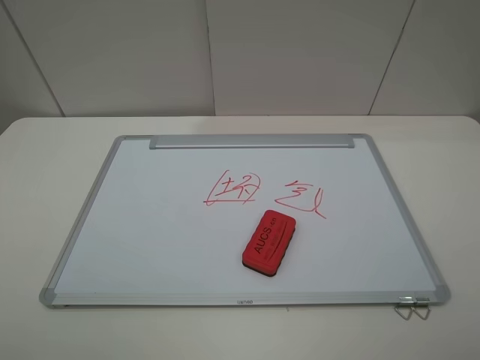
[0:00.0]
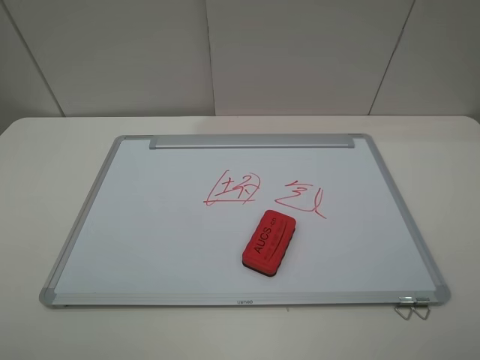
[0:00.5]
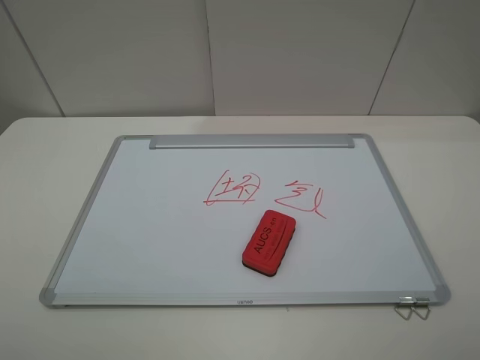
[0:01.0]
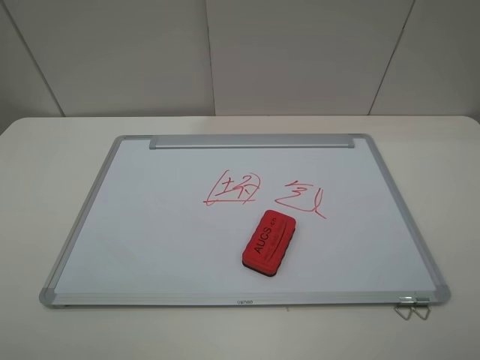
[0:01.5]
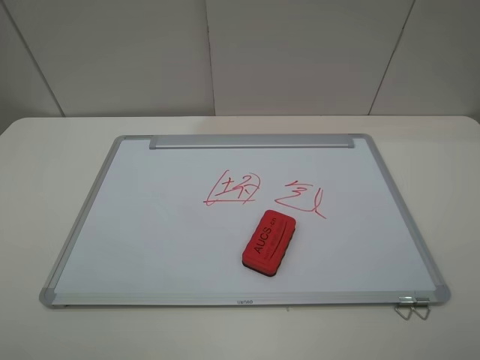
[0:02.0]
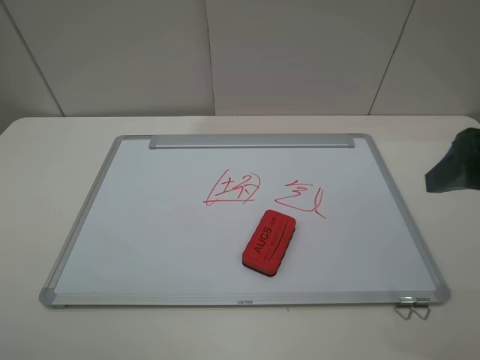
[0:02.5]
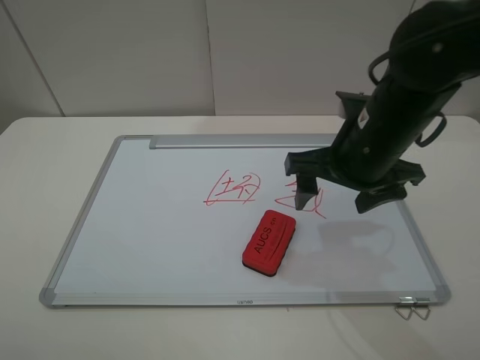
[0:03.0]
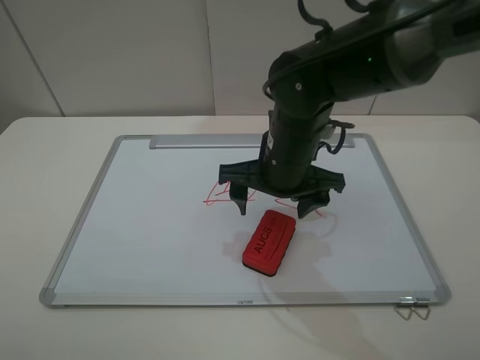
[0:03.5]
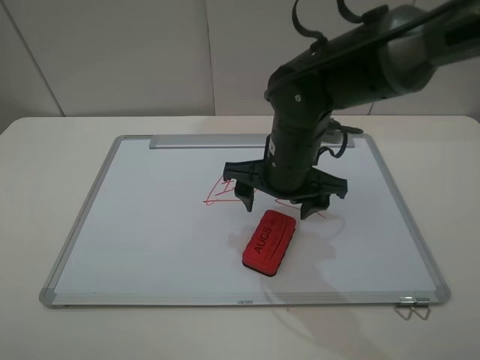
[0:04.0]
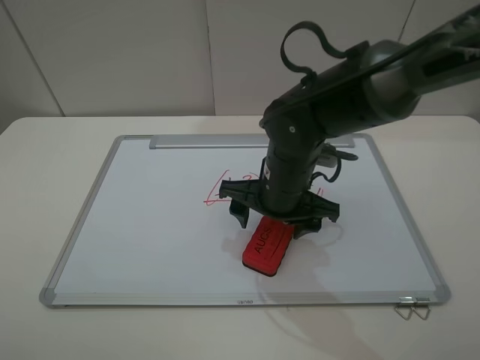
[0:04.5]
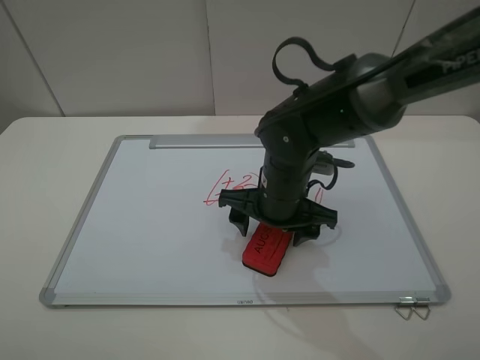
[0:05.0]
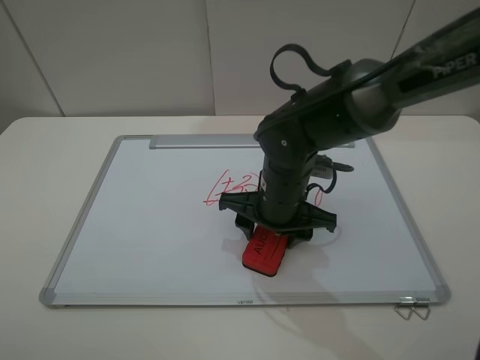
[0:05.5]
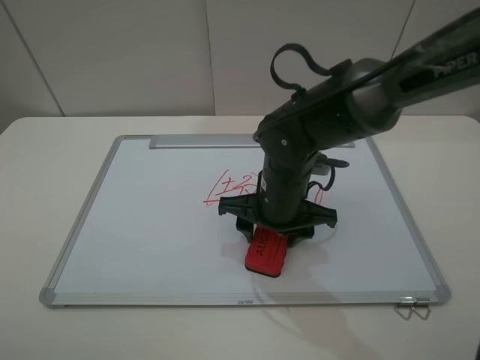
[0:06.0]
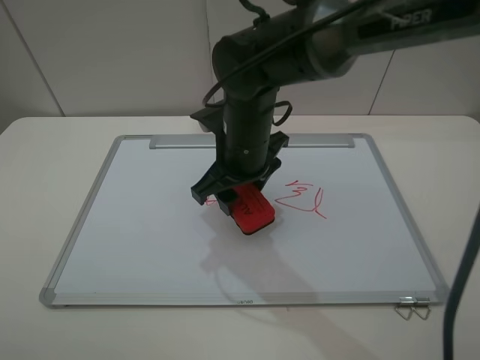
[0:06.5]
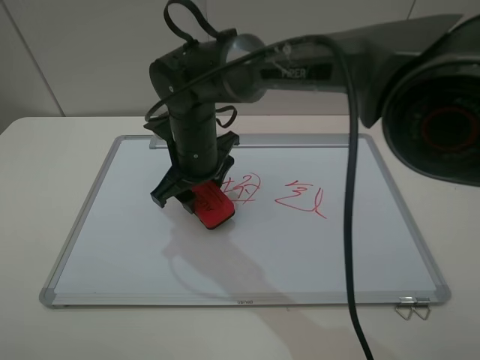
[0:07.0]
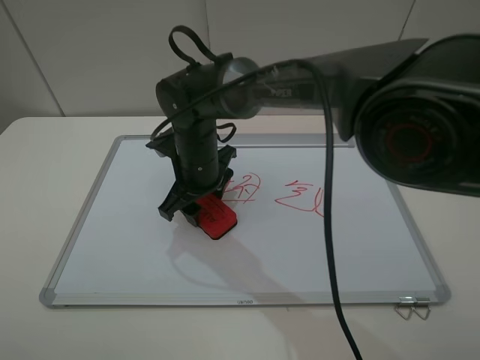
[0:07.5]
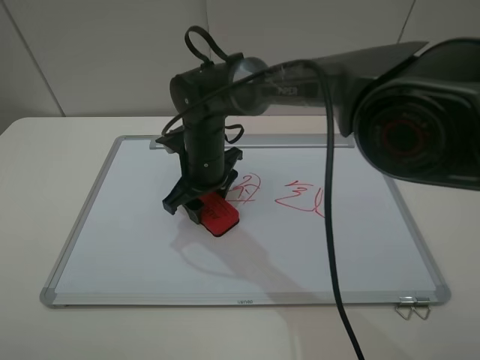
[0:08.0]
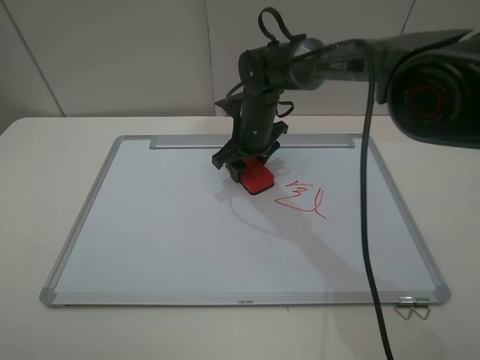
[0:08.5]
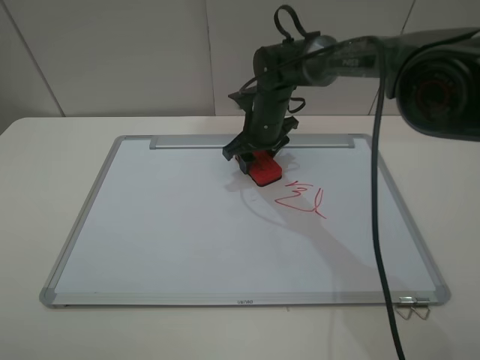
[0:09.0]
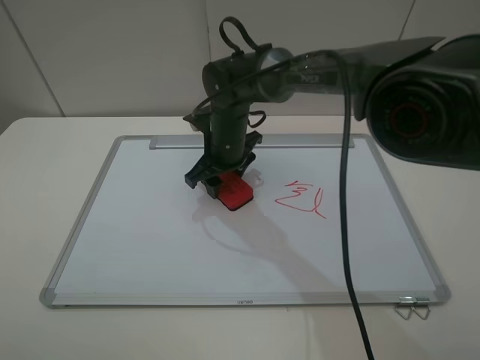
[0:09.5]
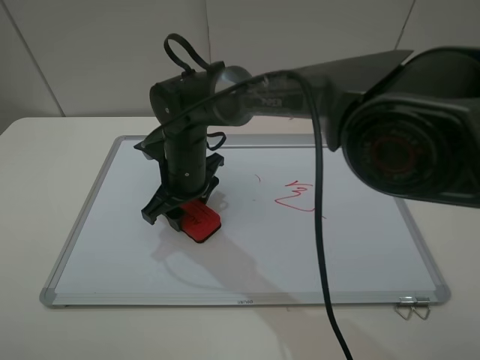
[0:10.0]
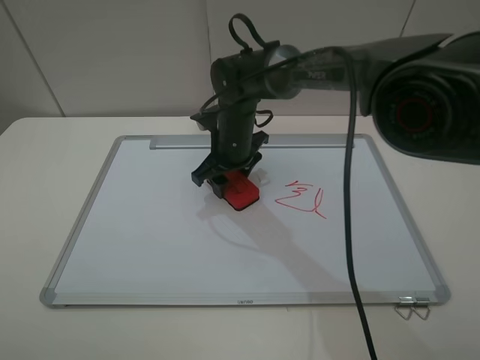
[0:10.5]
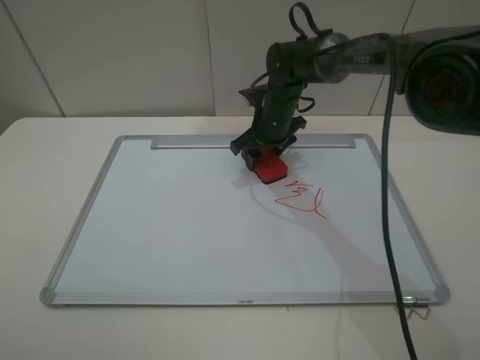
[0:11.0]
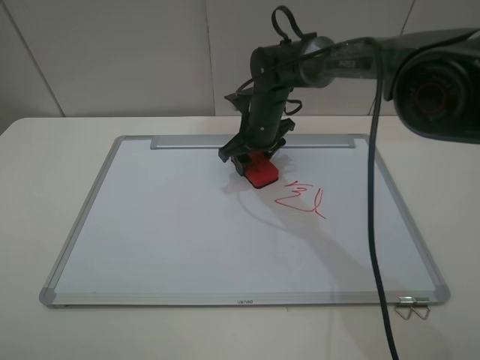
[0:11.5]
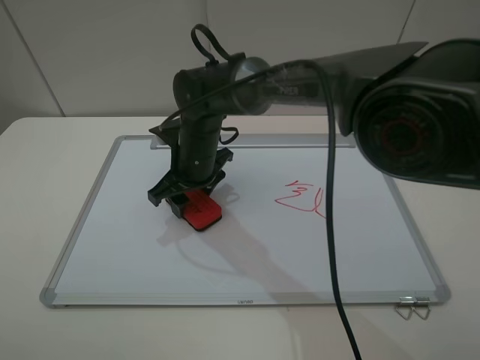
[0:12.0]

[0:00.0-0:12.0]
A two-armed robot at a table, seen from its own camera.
Step, 0:00.0 to 0:05.5: Grasp the eraser with the right gripper.
0:00.0 to 0:02.0: Neither gripper changes place.
0:02.0 to 0:04.0: The right gripper travels forward, to the left and downward by approximately 40 cm.
0:04.0 to 0:06.0: The right gripper closes its fingers.
0:06.0 to 0:08.0: The right gripper goes some 15 cm to the left and forward.
0:08.0 to 0:10.0: The right gripper travels to the right and back again, about 10 cm each way.
0:10.0 to 0:12.0: The right gripper travels to the right and back again, about 15 cm each way.

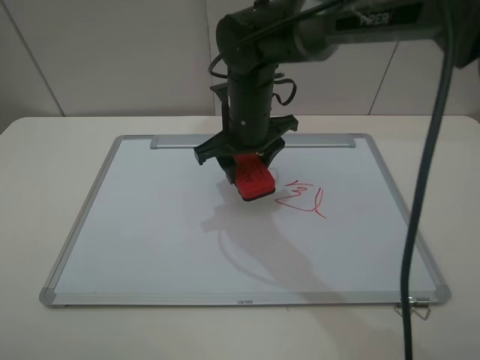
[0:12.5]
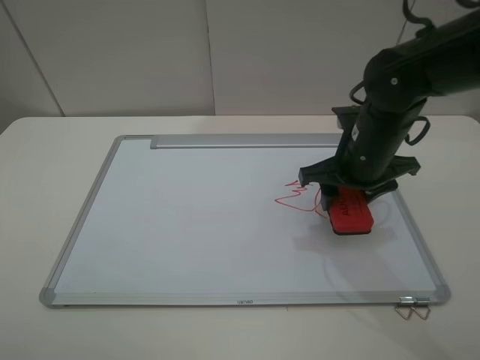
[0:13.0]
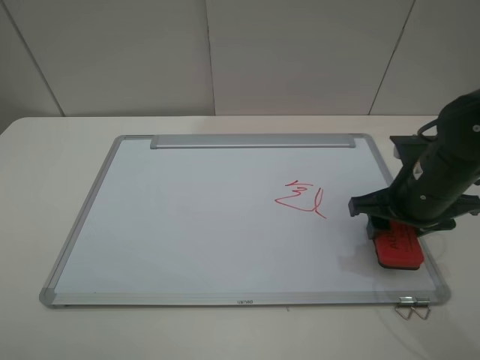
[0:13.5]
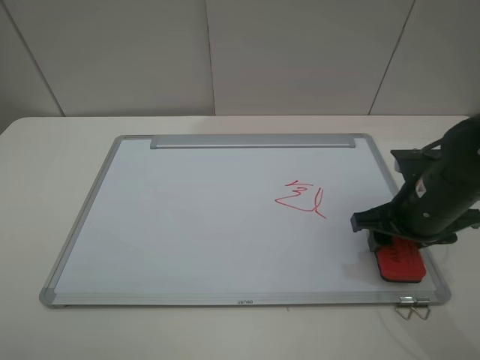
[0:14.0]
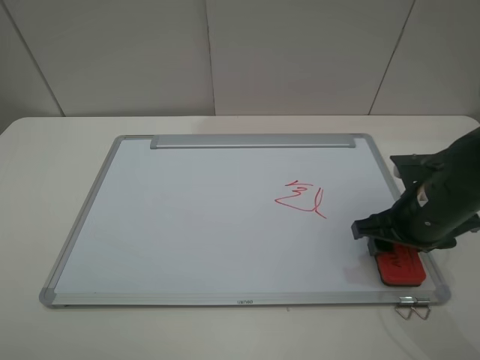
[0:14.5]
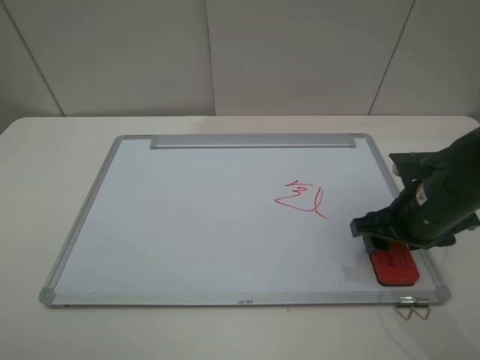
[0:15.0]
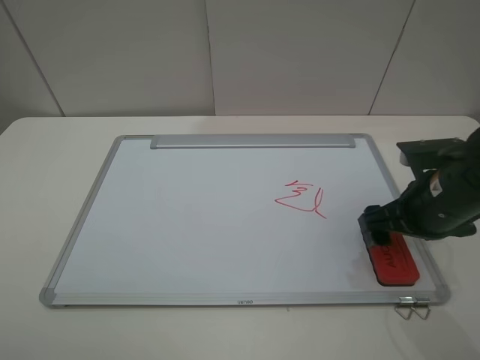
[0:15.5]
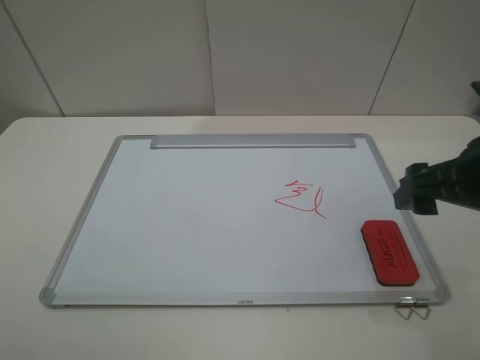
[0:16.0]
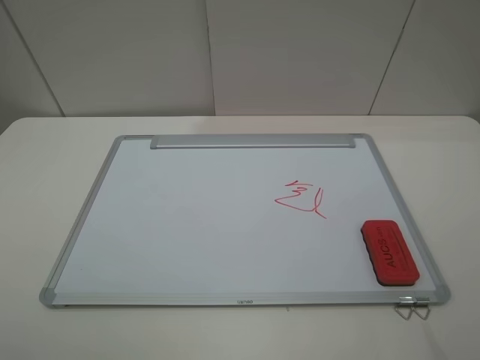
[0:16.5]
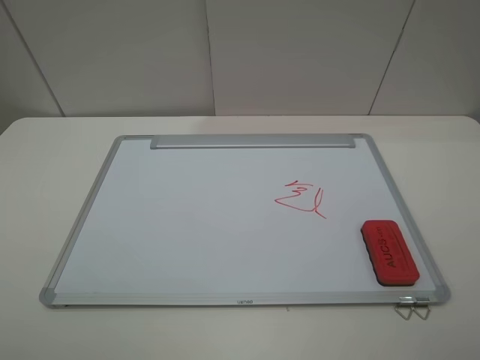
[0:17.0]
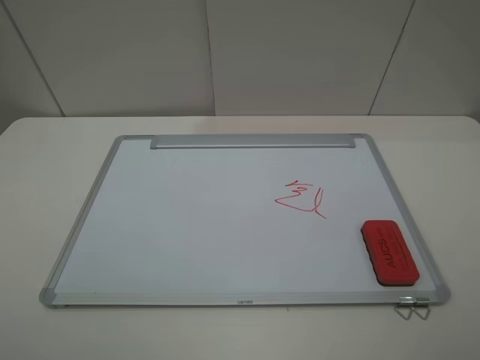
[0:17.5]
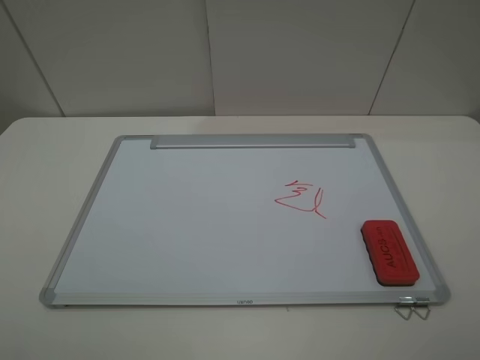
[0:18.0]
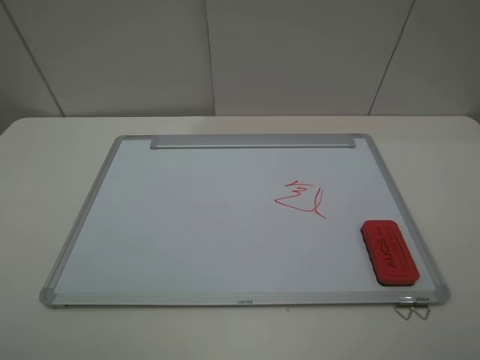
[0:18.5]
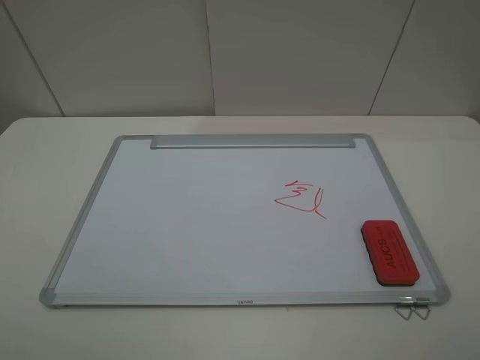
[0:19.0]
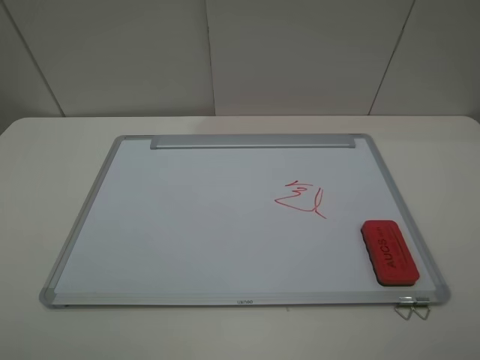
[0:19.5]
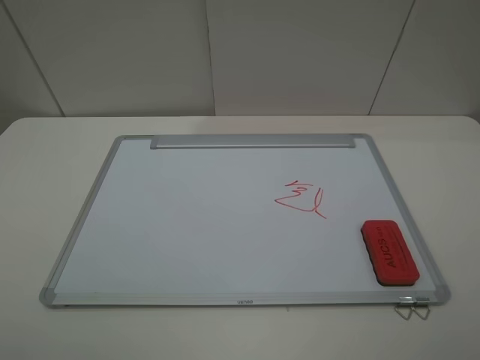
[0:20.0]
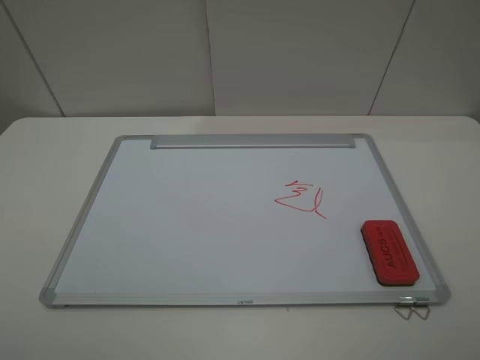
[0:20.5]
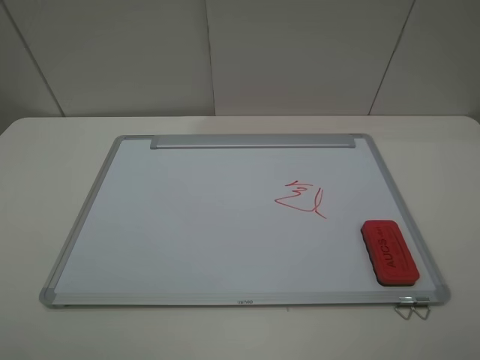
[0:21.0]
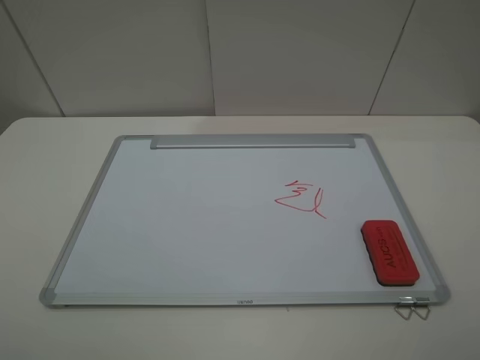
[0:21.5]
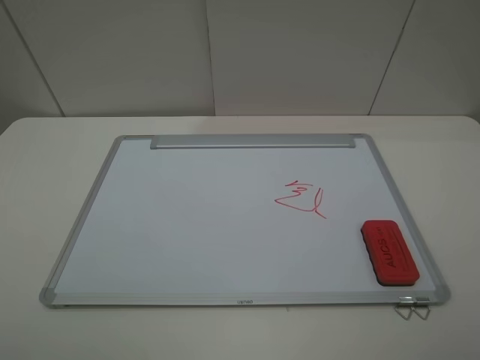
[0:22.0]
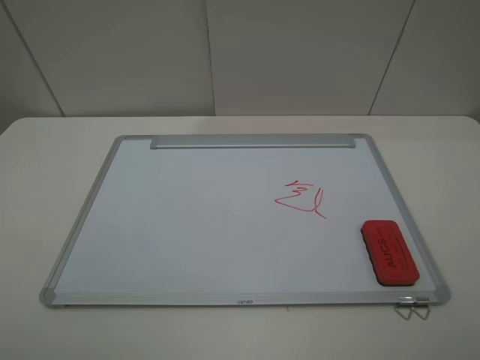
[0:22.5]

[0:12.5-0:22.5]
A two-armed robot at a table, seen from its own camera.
Step, 0:12.5 to 0:15.0: Place the eraser with the right gripper.
0:12.5 to 0:14.5: The right gripper goes approximately 25 cm to the right and backward.
0:14.5 to 0:16.5: The right gripper moves upward and backward, roughly 25 cm, and opens up.
0:18.5 to 0:20.5: Both grippers stay about where they are.
